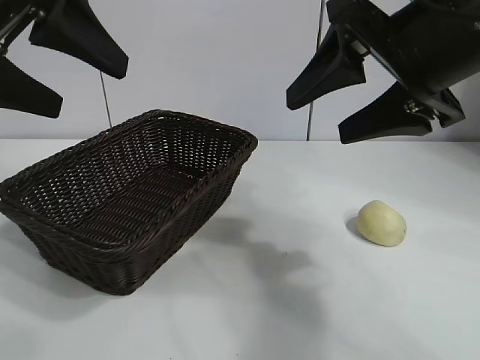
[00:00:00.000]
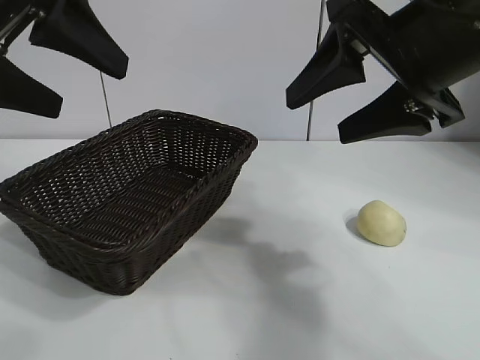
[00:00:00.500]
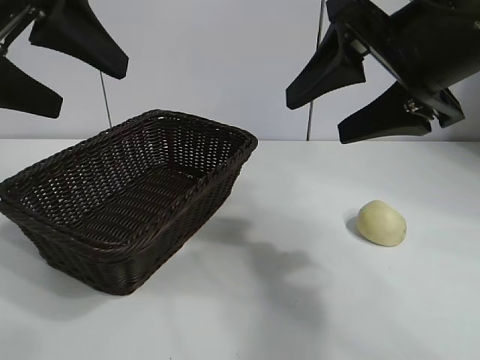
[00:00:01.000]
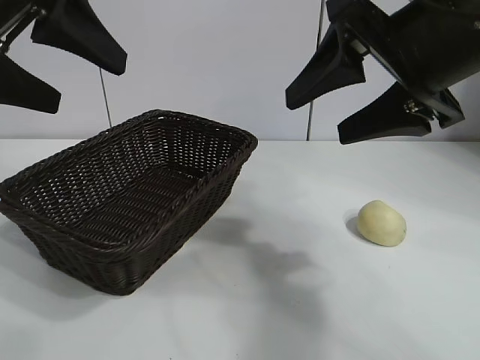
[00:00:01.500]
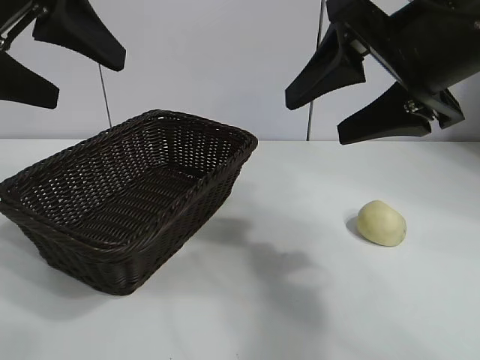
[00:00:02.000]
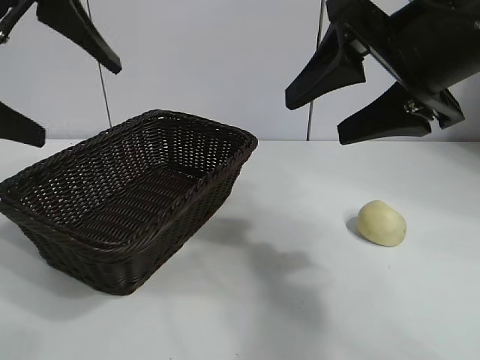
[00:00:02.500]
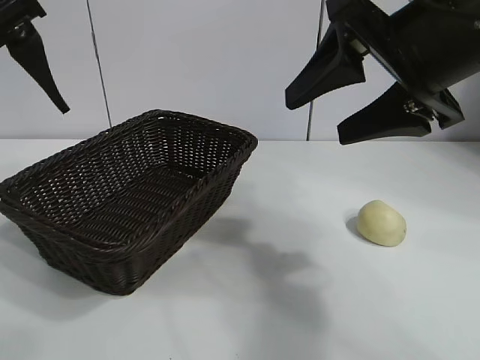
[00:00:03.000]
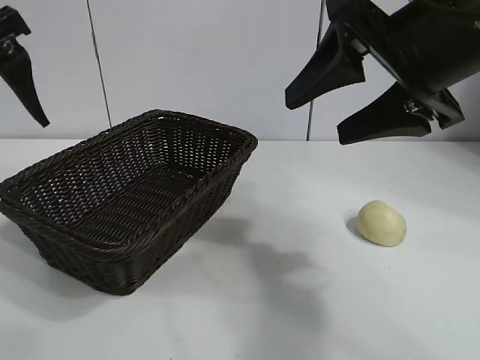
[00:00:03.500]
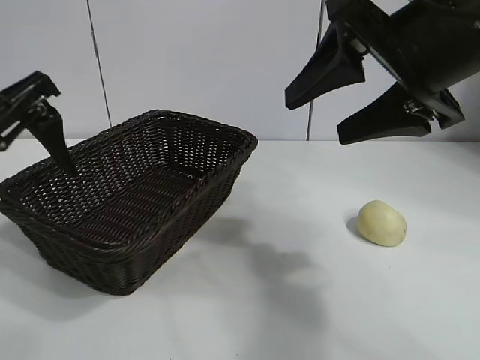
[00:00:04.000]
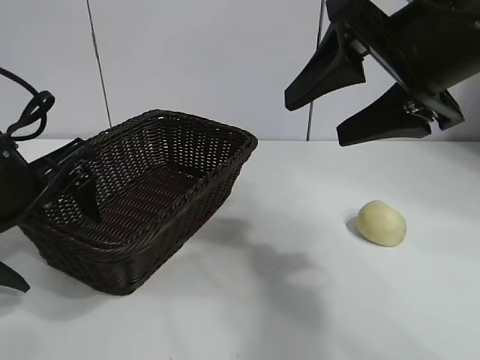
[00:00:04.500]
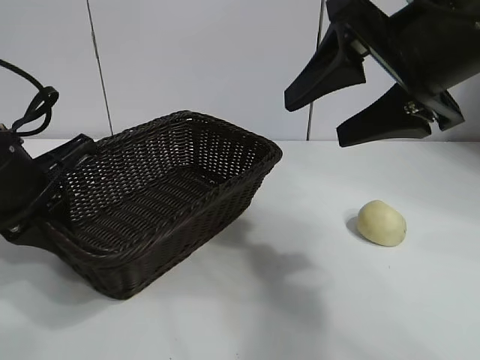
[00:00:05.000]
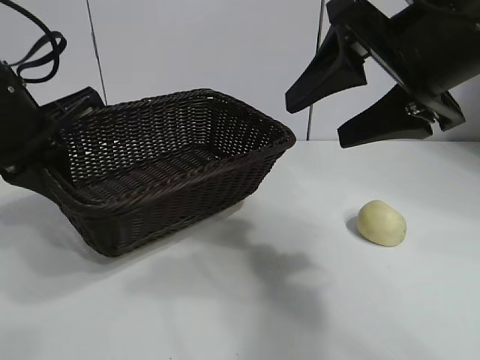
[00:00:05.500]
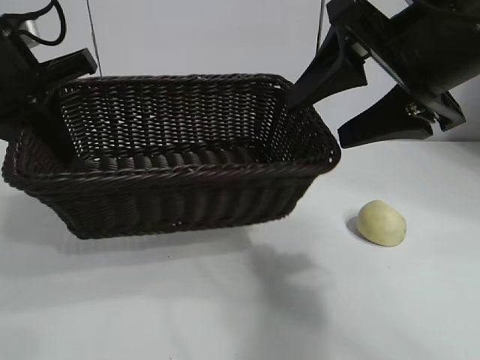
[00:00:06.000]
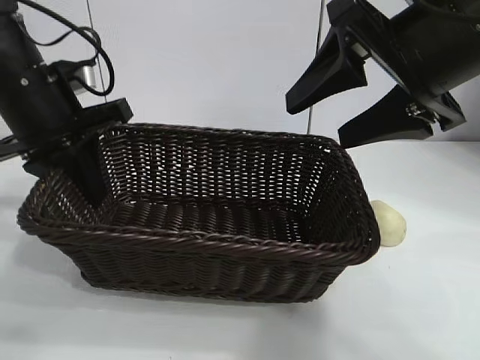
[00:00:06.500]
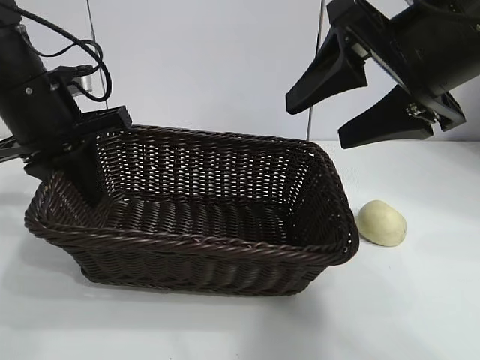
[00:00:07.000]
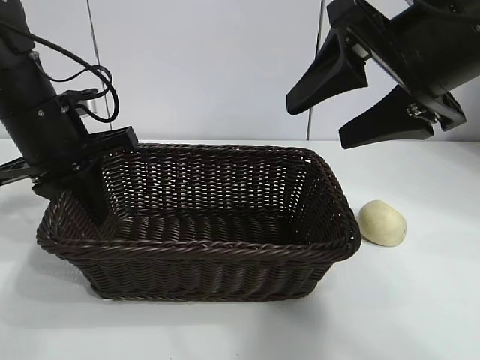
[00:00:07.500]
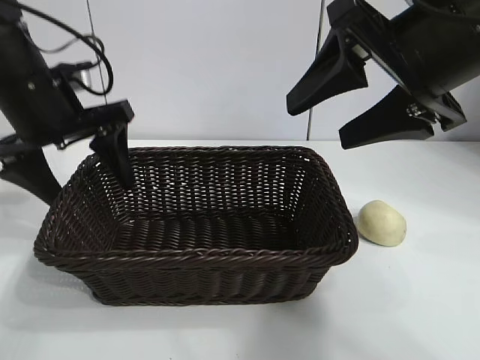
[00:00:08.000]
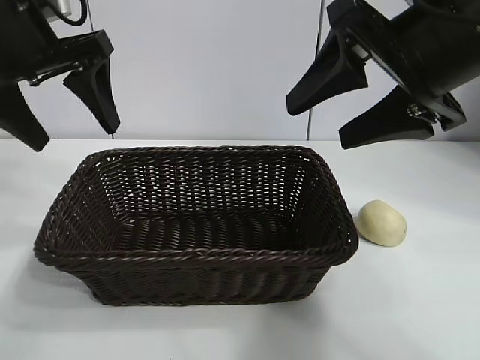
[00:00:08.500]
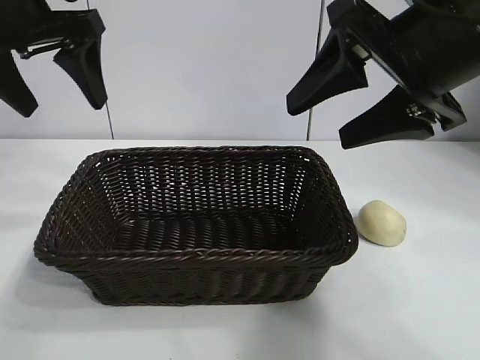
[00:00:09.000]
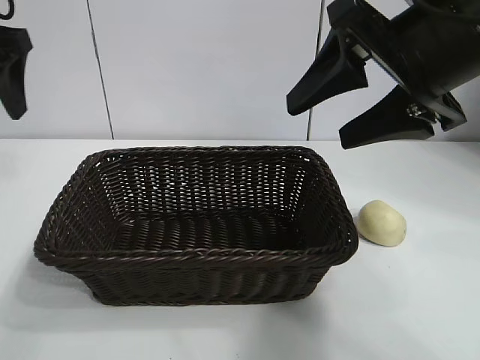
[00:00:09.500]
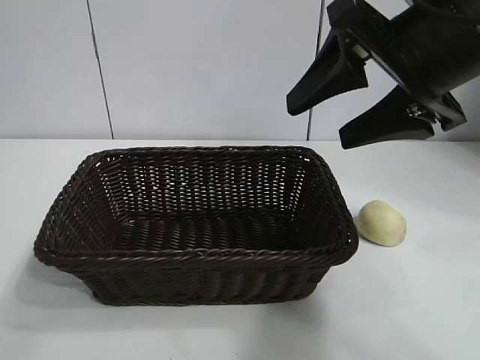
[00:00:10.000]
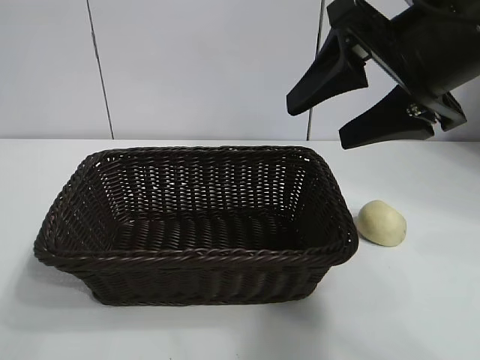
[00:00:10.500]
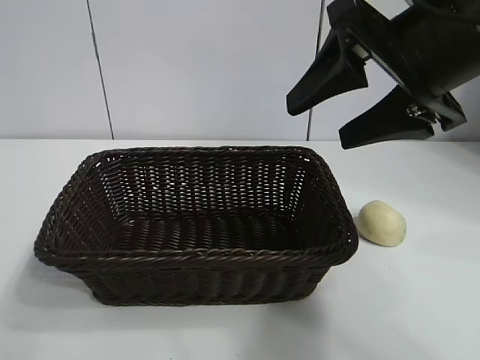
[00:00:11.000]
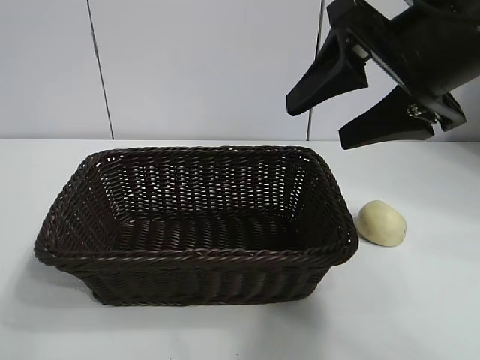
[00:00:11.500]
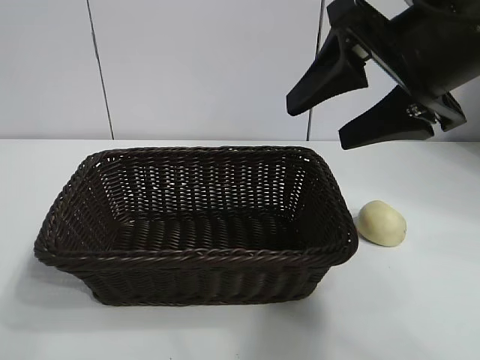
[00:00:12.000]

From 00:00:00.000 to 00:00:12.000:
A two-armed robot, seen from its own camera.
Task of the whole recording: pick up the egg yolk pastry and put it into the basket.
Step, from 00:00:01.500 to 00:00:04.500: Grasp the basket with left gripper.
Step, from 00:00:05.000 to 00:00:08.000: Place the basket in the center of view with left gripper.

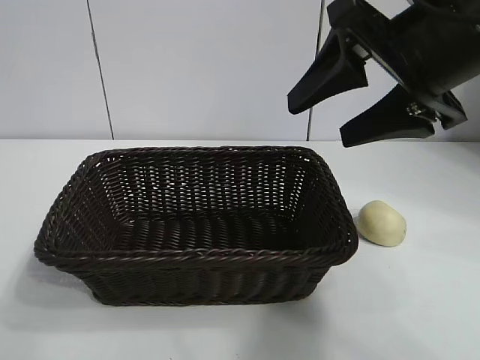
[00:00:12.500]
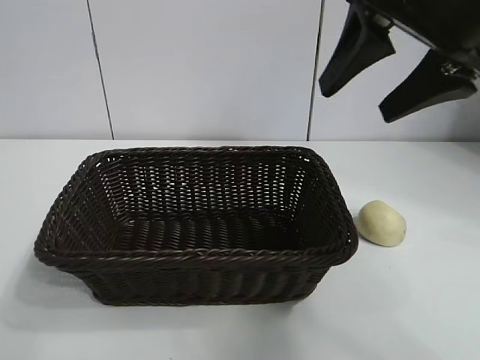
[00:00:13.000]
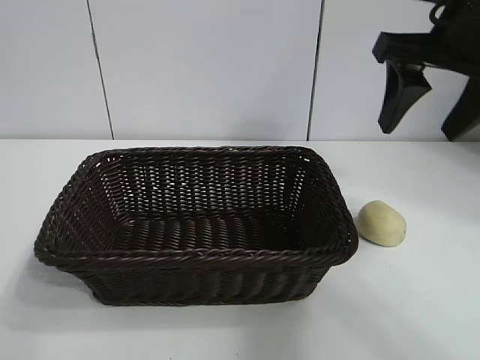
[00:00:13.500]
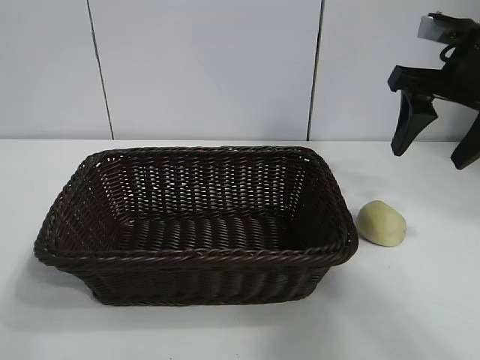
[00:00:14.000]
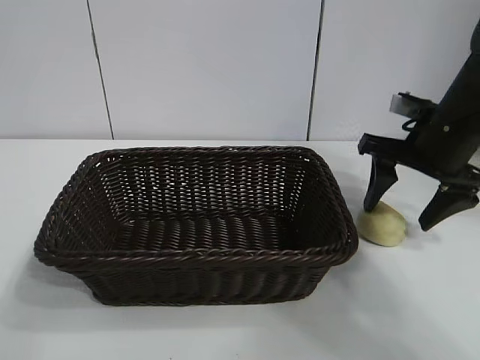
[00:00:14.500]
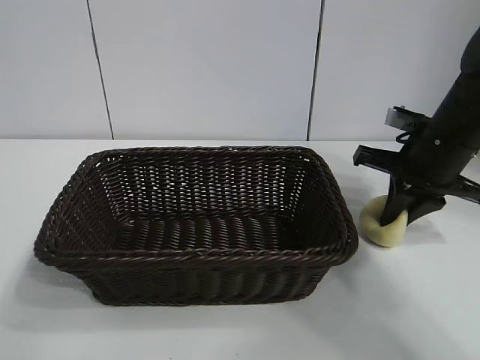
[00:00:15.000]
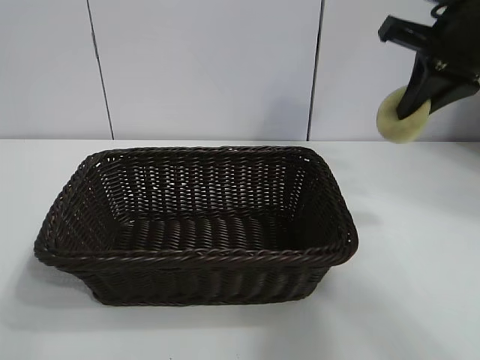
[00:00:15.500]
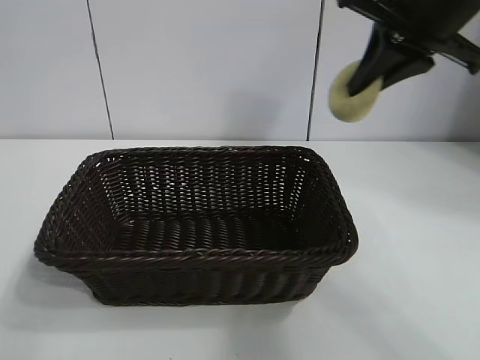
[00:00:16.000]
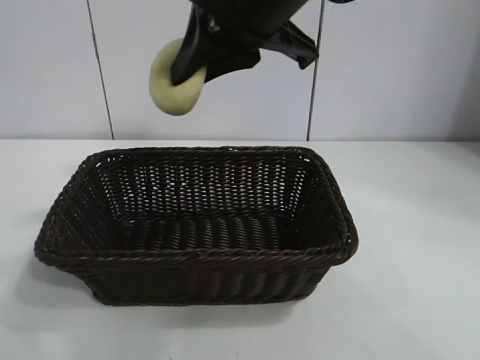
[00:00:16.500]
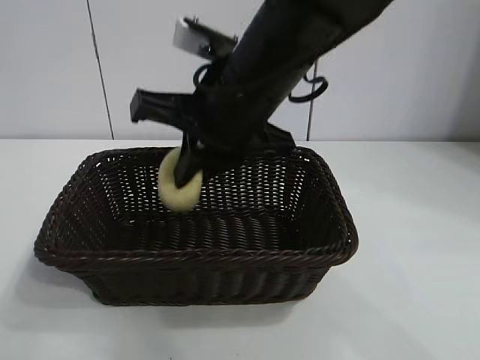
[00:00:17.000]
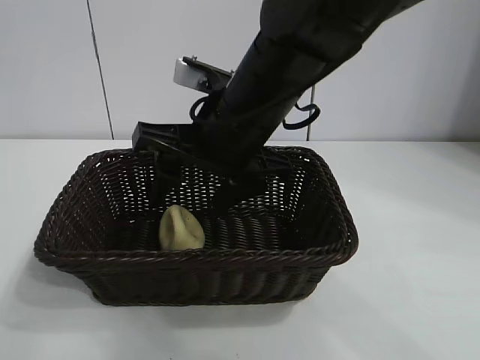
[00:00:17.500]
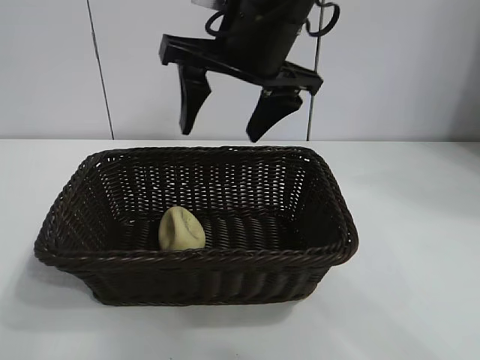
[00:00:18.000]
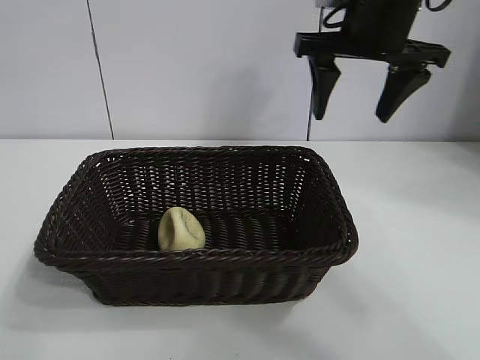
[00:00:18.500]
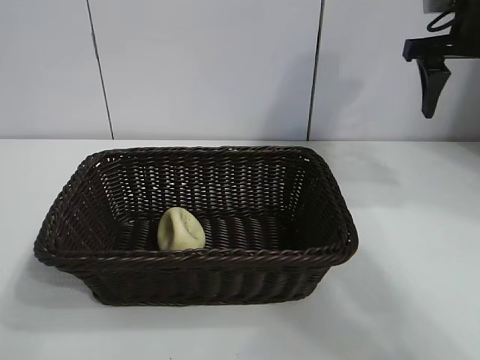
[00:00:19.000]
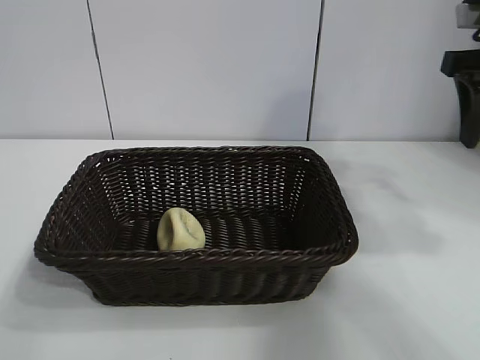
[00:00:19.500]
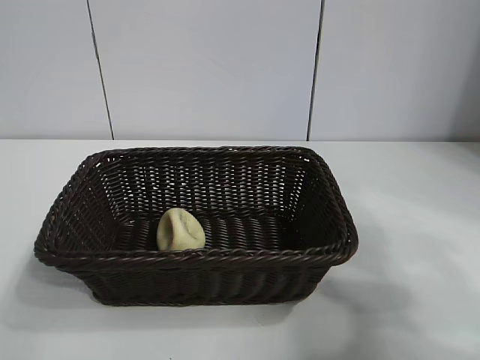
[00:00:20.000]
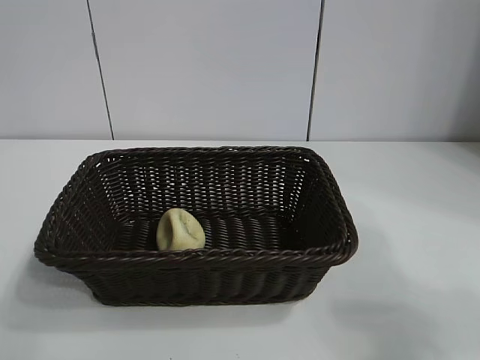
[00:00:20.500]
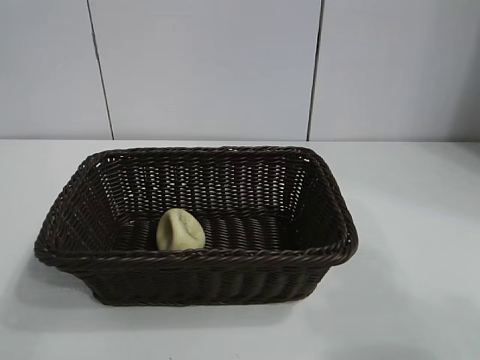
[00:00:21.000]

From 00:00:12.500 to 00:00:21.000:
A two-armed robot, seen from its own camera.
Task of the whole recording: pick up the egg yolk pastry and put it into the basket.
Step, from 00:00:12.500 to 00:00:14.500: Grasp egg yolk pastry with right gripper.
Step, from 00:00:15.500 to 00:00:17.500: Place the egg yolk pastry in the basket with right gripper.
